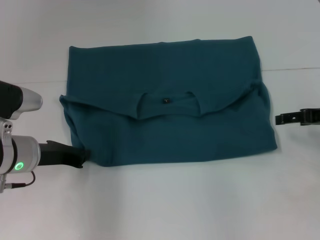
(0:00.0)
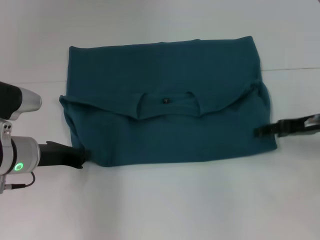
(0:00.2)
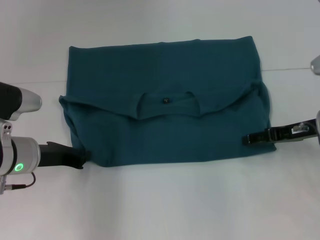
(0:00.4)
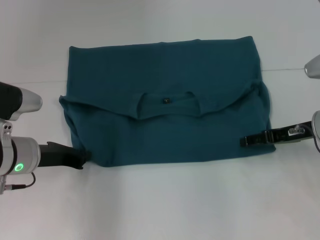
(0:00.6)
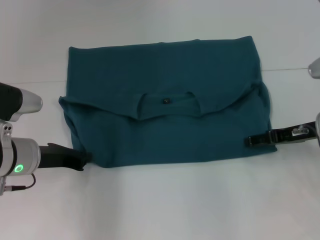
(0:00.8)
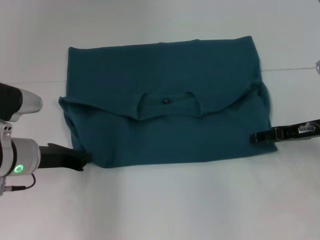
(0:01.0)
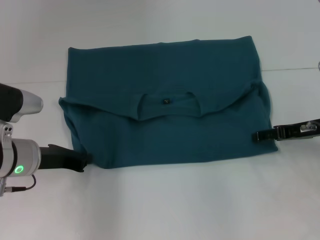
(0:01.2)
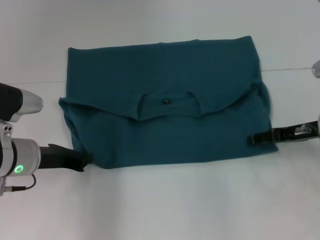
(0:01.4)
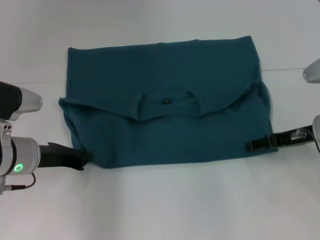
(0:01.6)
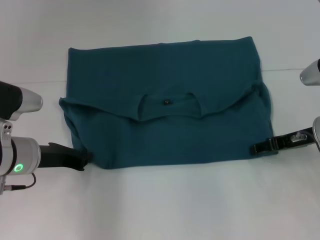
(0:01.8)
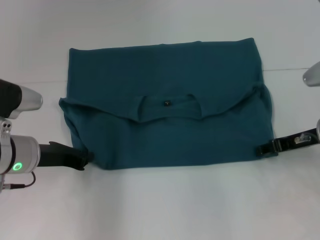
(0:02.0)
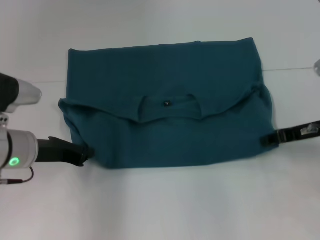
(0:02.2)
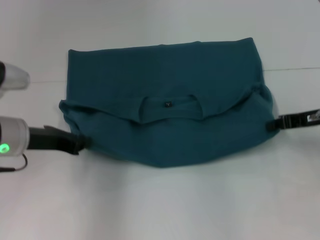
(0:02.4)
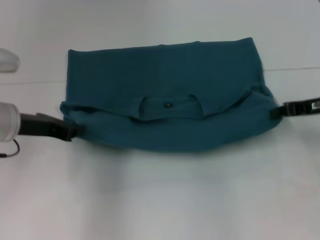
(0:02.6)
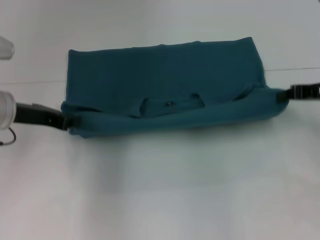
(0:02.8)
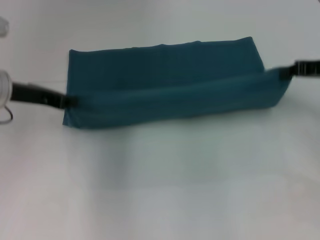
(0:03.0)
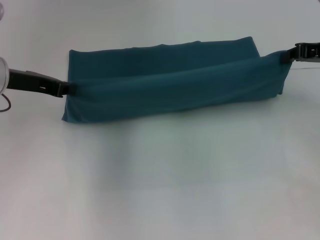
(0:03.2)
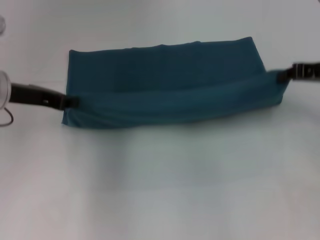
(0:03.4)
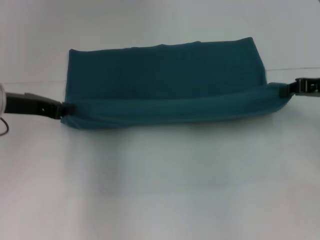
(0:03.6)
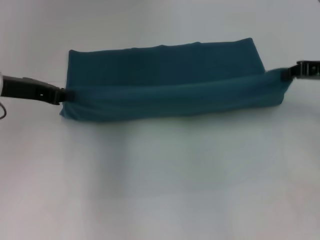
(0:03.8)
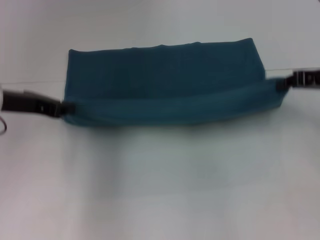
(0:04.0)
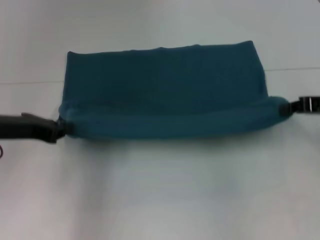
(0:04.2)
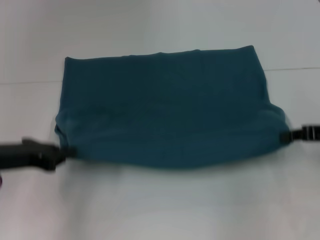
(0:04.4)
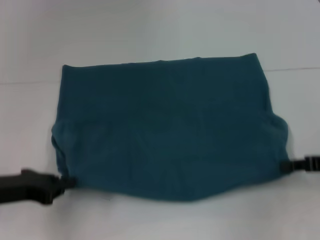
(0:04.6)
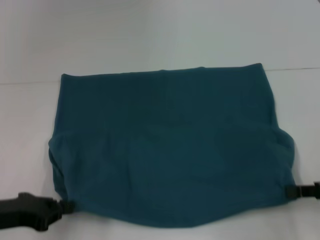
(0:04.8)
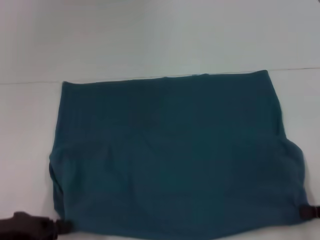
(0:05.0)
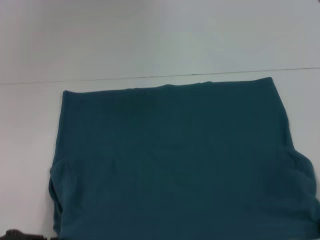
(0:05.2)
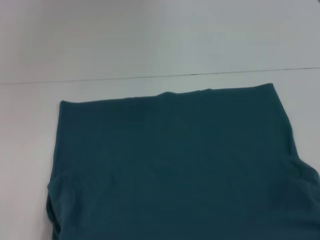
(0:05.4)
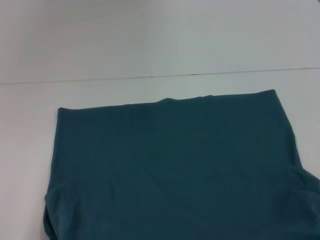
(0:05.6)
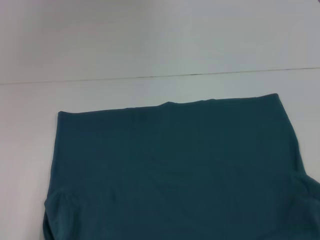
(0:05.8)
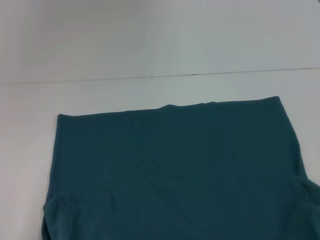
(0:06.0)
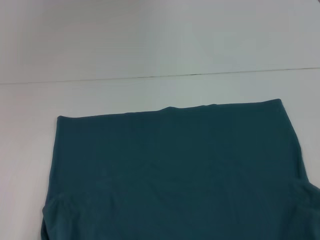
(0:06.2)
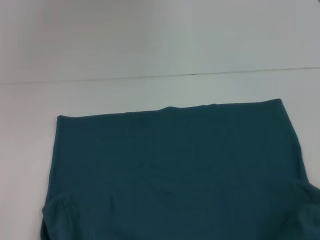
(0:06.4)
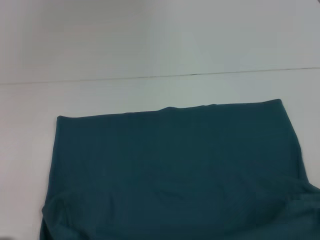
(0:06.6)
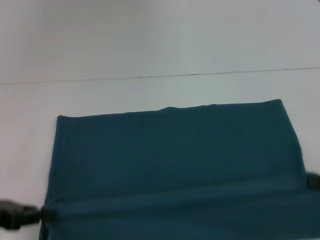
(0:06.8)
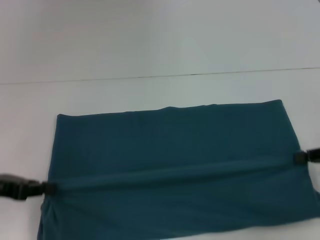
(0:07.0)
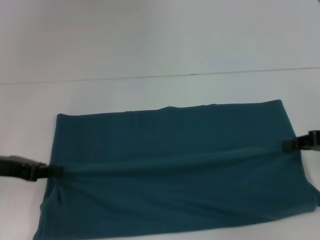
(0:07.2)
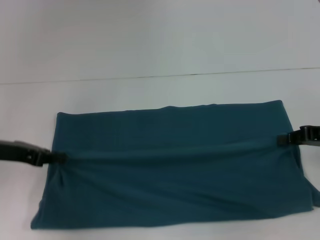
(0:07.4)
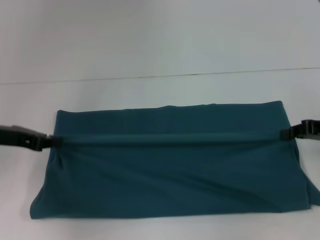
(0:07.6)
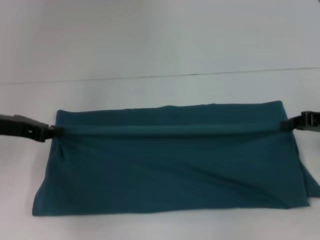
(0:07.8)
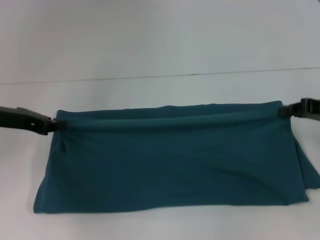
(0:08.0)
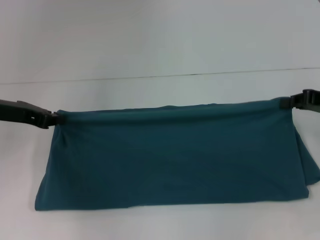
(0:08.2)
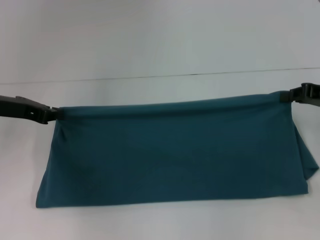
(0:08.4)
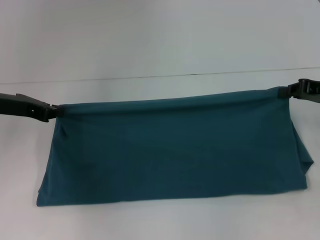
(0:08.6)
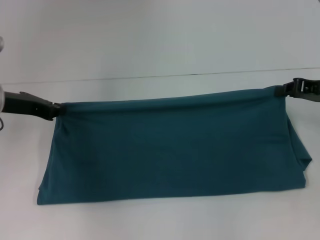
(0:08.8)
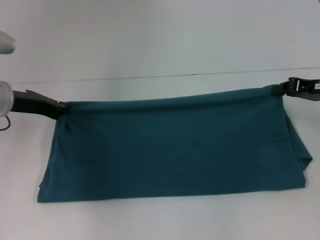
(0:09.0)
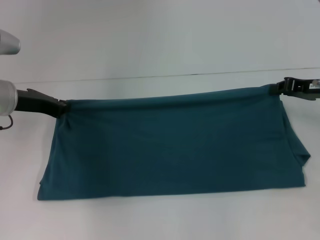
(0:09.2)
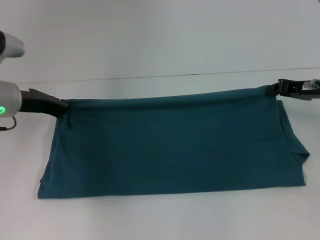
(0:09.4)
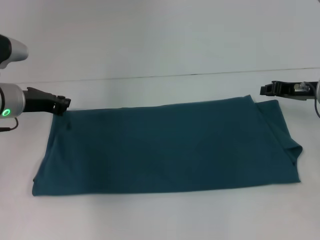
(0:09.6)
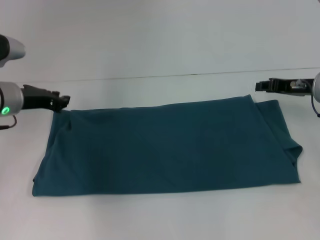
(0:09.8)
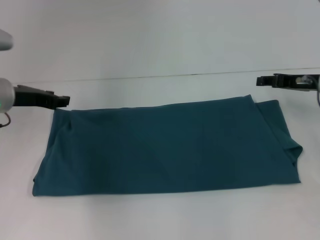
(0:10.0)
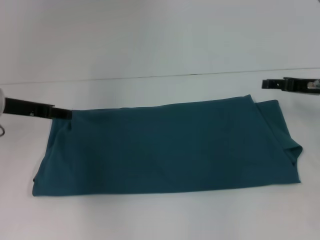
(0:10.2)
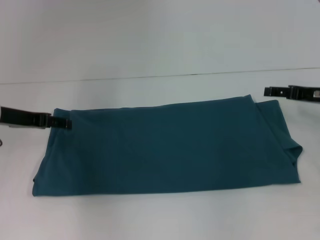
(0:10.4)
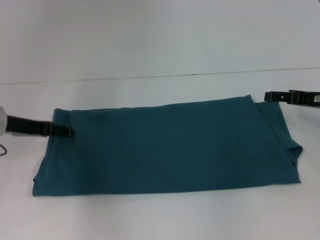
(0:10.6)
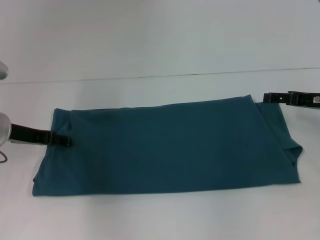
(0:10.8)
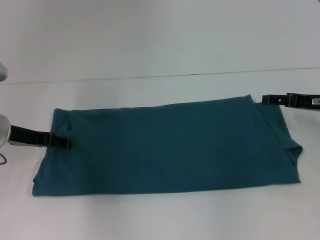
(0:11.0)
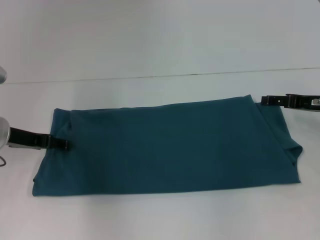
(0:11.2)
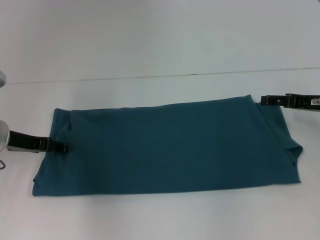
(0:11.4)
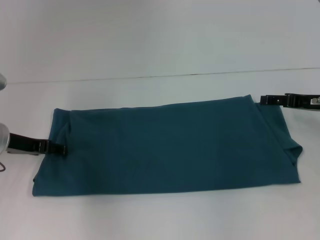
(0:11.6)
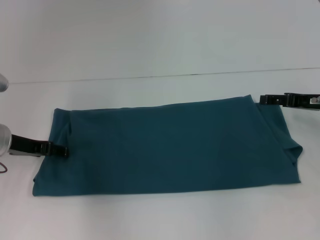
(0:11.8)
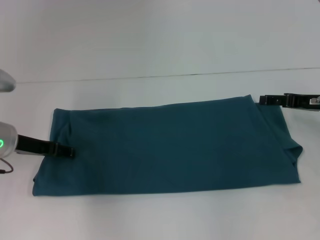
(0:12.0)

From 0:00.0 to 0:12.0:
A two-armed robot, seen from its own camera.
Step, from 0:00.0 to 0:05.8: Pull the clothes with your left hand.
Step, from 0:00.0 to 0:05.8: Pull the clothes with your right hand.
Step, from 0:06.0 to 0:11.6: Fold the clothes to the left.
Step, from 0:06.0 to 0:11.6: Fold the clothes to the right.
From 0:00.0 to 0:01.6: The right gripper shifts approximately 5 cm to the left.
From 0:01.6 to 0:03.0: The left gripper is displaced upward and forward by some 10 cm. Meanwhile the right gripper travels upward by about 10 cm, and closes up.
From 0:03.0 to 0:04.4: The left gripper travels backward by roughly 10 cm. Meanwhile the right gripper moves backward and downward, approximately 10 cm.
From 0:04.4 to 0:06.0: The two grippers go about 15 cm backward.
From 0:06.0 to 0:07.6: The two grippers go about 20 cm forward.
From 0:07.6 to 0:09.0: The left gripper moves roughly 5 cm. Meanwhile the right gripper changes place by about 5 cm.
From 0:09.0 to 0:10.4: The left gripper opens up; the right gripper opens its fingers.
From 0:10.4 to 0:12.0: The grippers stay close to where they were, moving slightly.

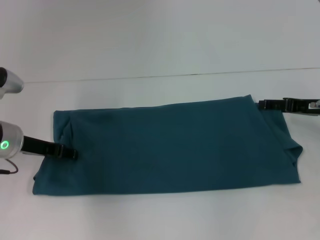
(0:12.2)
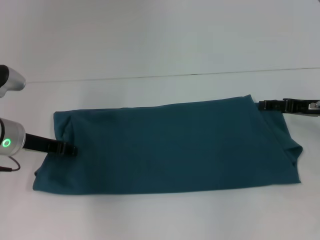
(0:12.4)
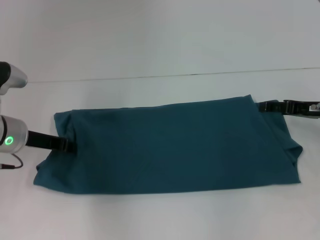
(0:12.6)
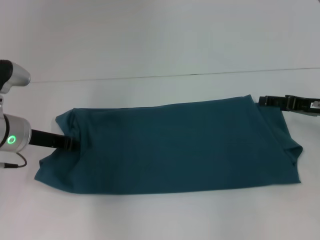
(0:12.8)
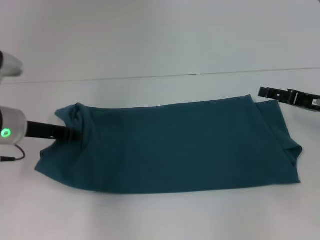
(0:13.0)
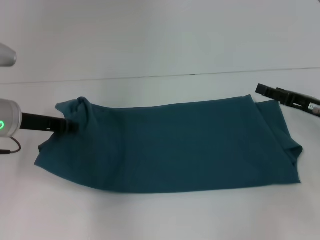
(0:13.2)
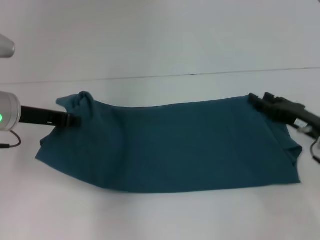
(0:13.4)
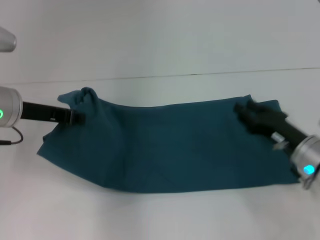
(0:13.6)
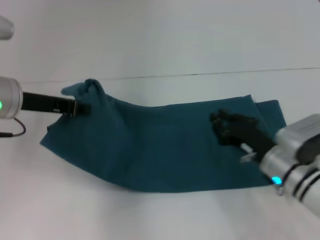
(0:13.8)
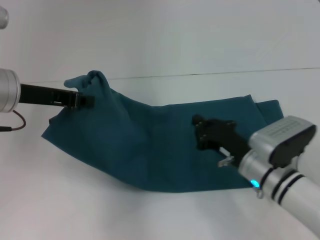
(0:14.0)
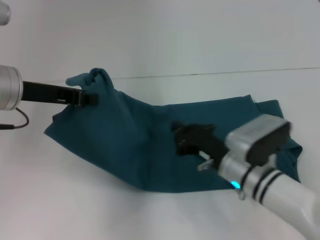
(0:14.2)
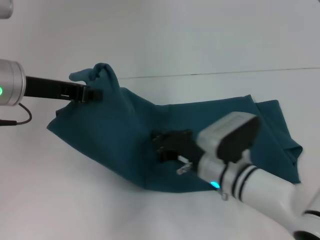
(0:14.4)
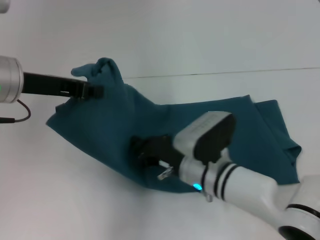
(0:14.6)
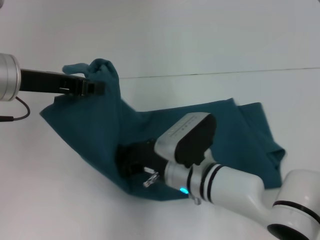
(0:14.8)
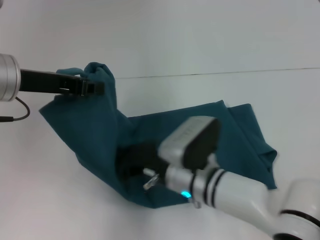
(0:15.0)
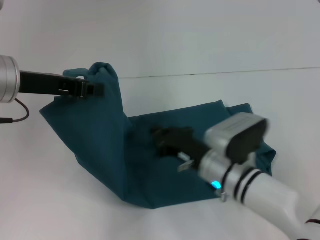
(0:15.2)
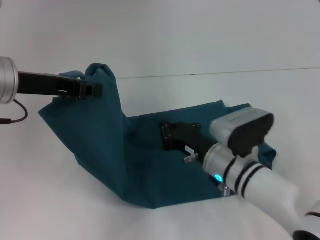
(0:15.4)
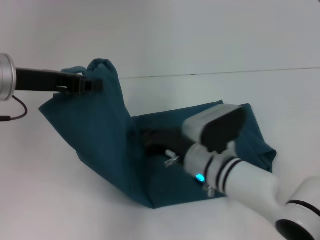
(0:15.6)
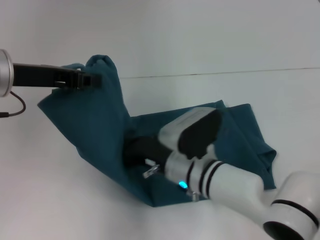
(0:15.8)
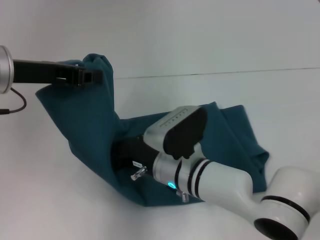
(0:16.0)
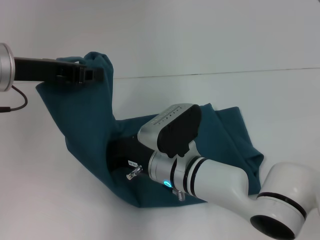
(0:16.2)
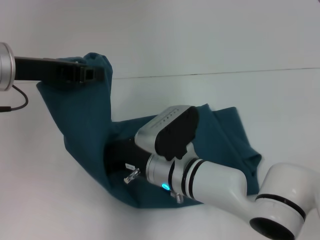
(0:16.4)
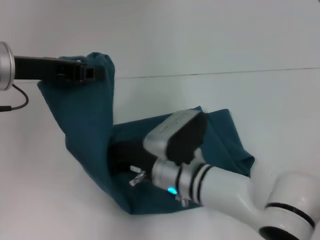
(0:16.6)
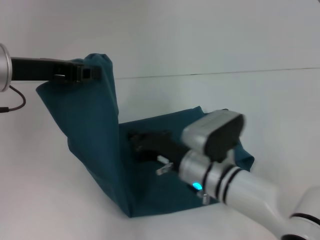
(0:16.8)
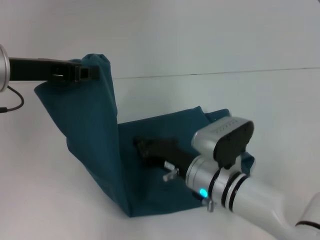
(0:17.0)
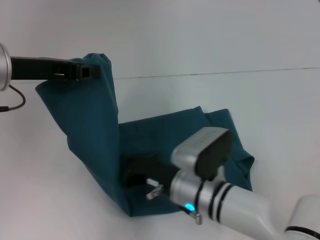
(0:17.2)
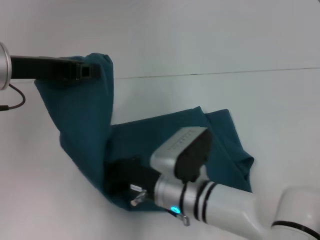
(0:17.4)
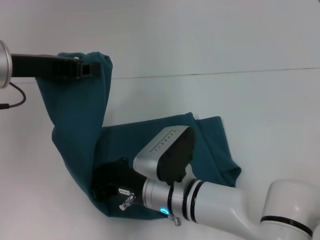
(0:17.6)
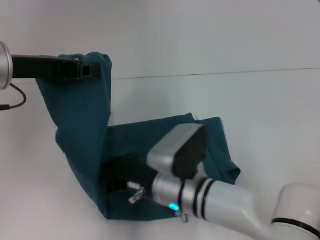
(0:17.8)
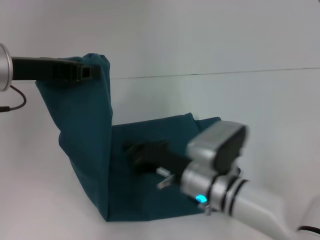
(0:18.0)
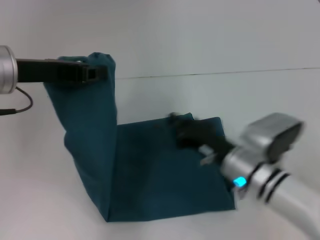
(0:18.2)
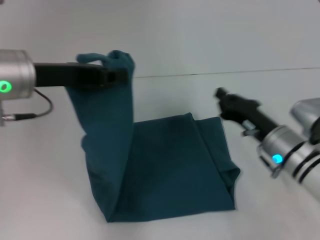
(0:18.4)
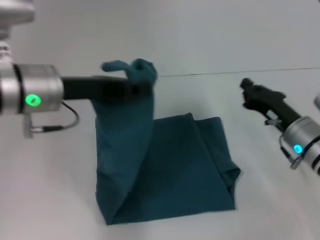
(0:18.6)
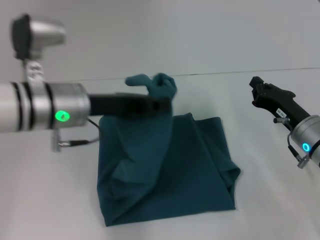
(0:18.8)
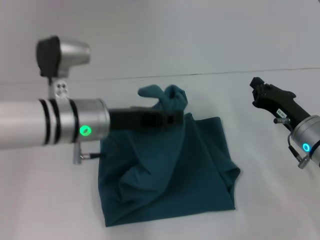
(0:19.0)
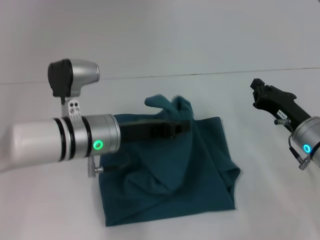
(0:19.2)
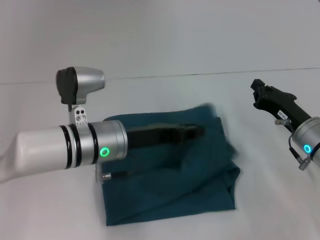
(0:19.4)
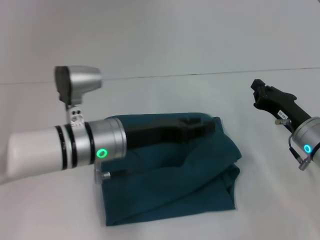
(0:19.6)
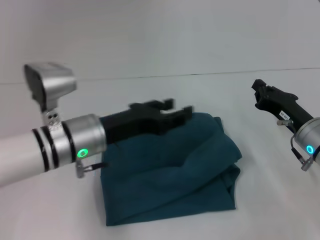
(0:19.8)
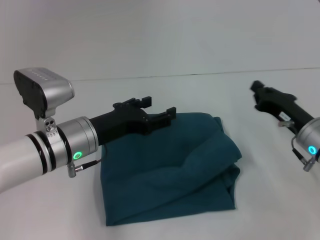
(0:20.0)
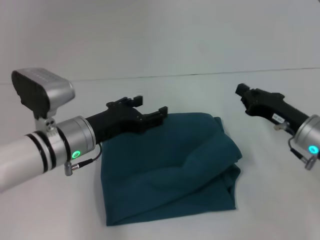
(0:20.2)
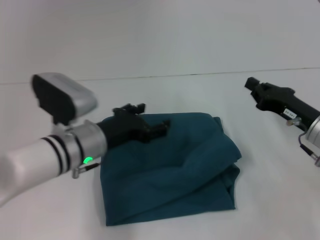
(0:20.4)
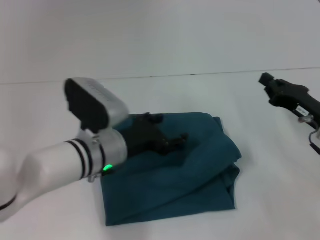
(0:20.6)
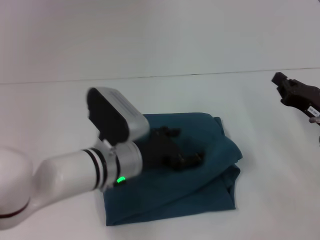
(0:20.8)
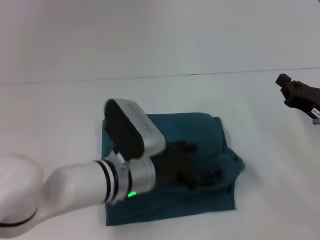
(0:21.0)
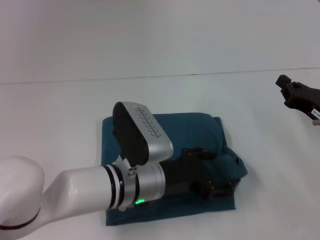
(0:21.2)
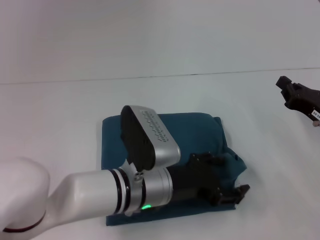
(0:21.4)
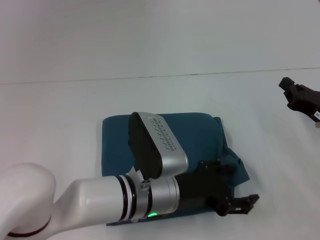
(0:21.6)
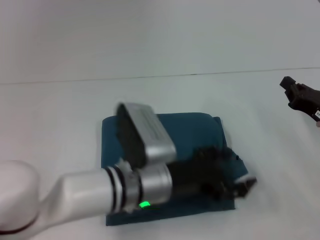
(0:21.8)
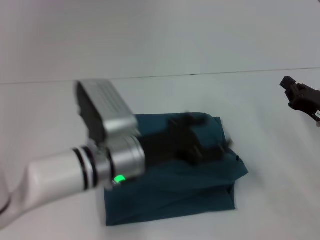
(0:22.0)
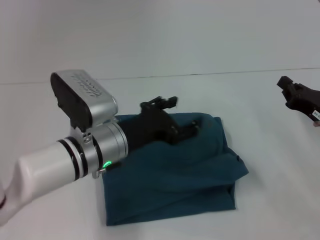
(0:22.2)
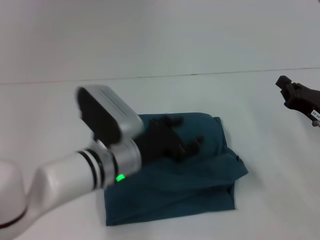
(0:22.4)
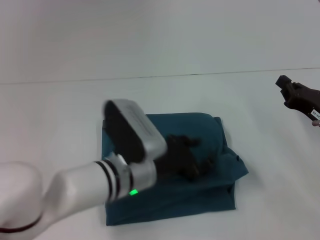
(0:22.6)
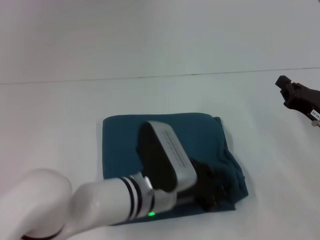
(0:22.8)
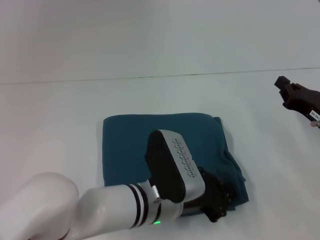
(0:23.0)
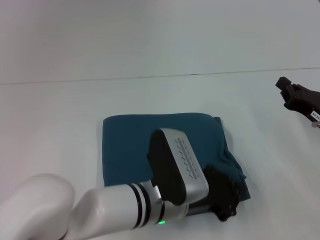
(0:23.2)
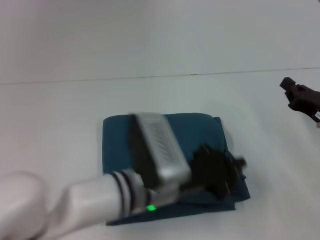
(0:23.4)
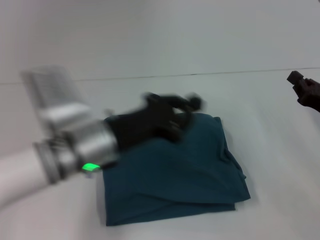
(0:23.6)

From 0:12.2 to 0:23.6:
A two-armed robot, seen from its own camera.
Step, from 0:12.2 to 0:16.6: Press the middle of the clothes with your right hand.
Step, from 0:16.8 to 0:19.4: Fold the clothes to the left.
From 0:12.2 to 0:13.6: The left gripper travels upward by some 5 cm, and closes. Meanwhile the right gripper goes about 10 cm downward, to the left and backward.
From 0:13.6 to 0:15.0: The right gripper shifts roughly 20 cm to the left, and closes its fingers; the left gripper heads upward, covering some 5 cm.
From 0:15.0 to 0:16.4: The right gripper reaches roughly 5 cm to the right, then returns.
From 0:17.8 to 0:19.4: The left gripper heads downward and to the right, covering some 15 cm; the right gripper moves to the right, approximately 20 cm.
From 0:19.4 to 0:20.8: The left gripper opens. Meanwhile the right gripper changes place by approximately 5 cm.
From 0:22.2 to 0:23.6: The left gripper goes to the right and returns, some 10 cm each way, and closes its fingers.
